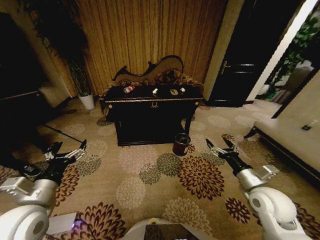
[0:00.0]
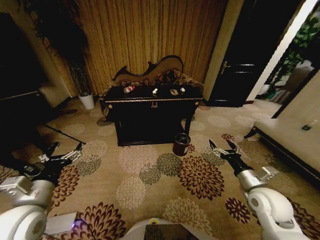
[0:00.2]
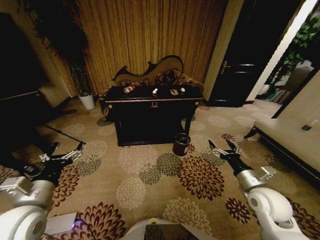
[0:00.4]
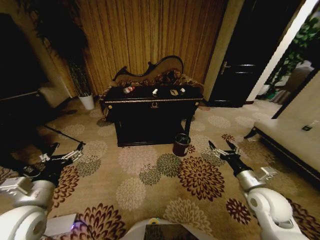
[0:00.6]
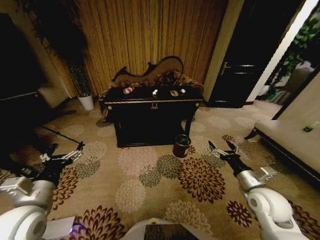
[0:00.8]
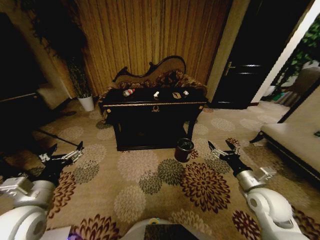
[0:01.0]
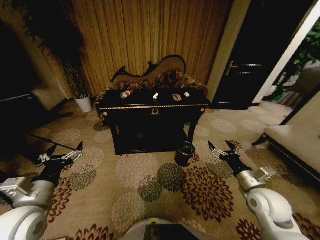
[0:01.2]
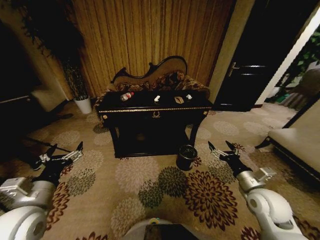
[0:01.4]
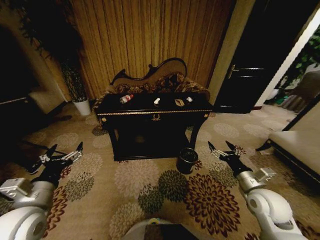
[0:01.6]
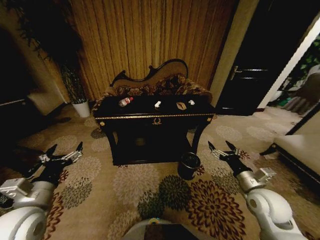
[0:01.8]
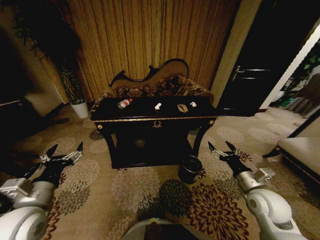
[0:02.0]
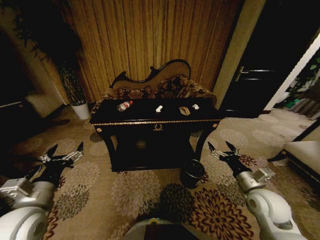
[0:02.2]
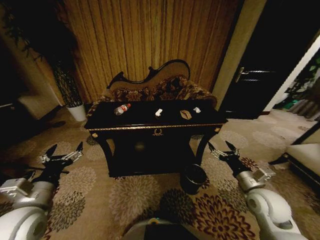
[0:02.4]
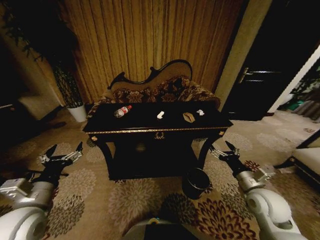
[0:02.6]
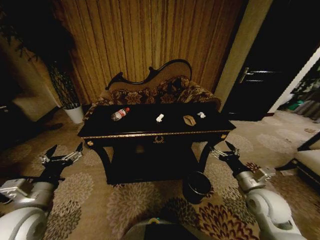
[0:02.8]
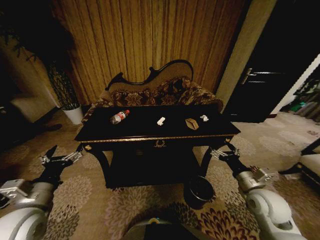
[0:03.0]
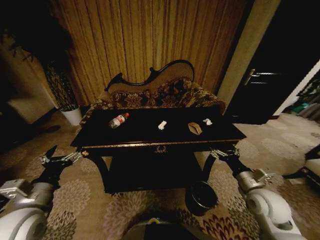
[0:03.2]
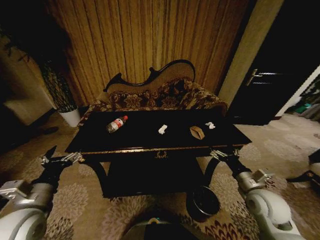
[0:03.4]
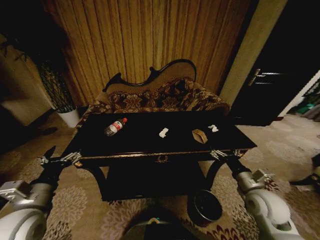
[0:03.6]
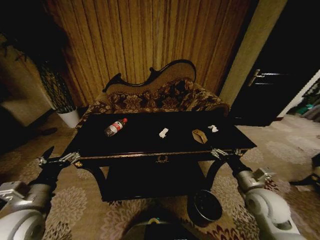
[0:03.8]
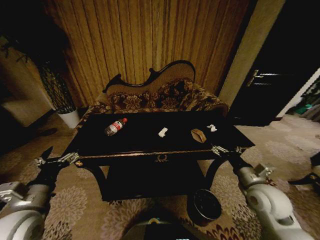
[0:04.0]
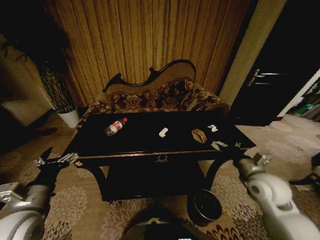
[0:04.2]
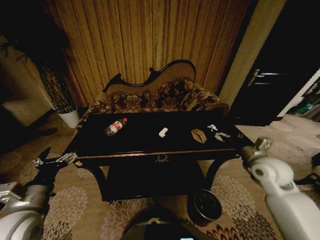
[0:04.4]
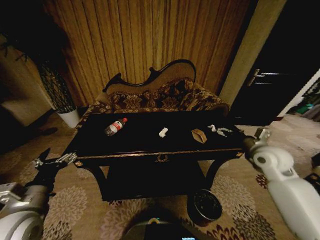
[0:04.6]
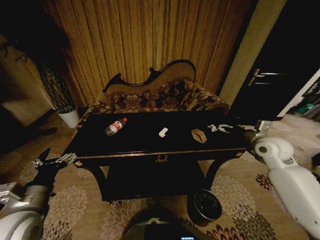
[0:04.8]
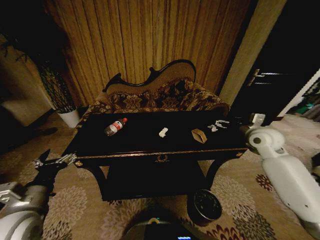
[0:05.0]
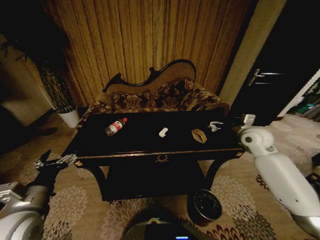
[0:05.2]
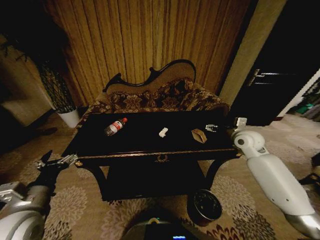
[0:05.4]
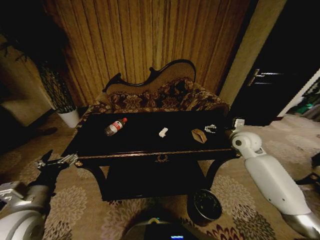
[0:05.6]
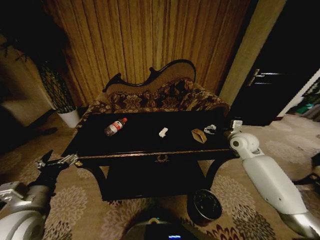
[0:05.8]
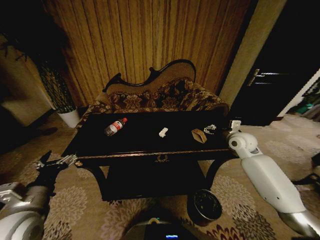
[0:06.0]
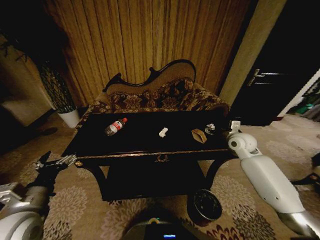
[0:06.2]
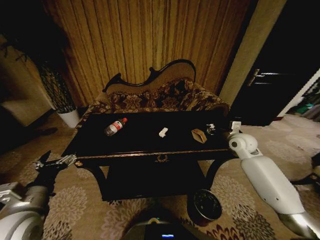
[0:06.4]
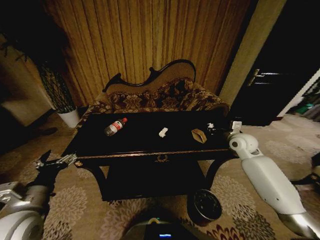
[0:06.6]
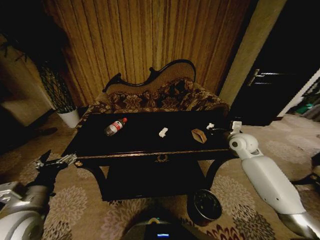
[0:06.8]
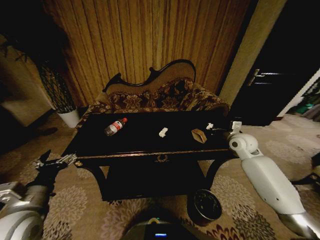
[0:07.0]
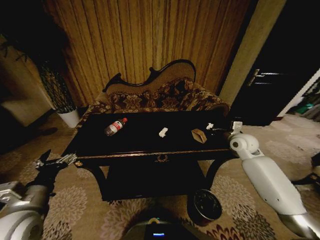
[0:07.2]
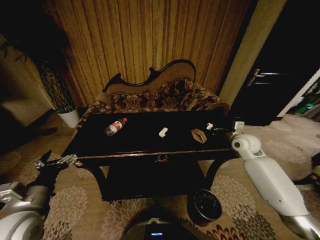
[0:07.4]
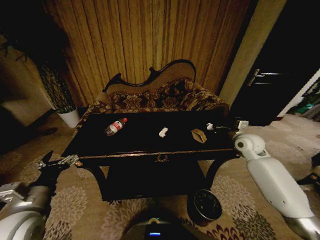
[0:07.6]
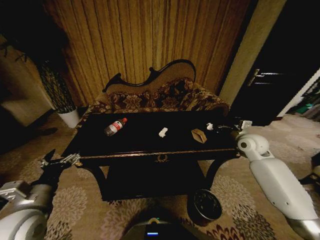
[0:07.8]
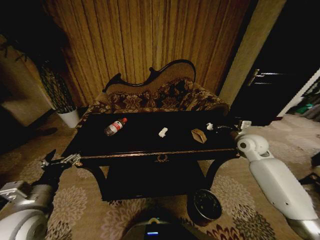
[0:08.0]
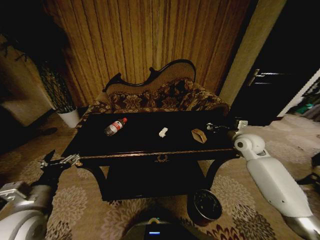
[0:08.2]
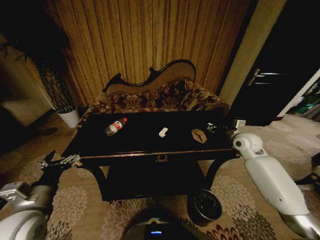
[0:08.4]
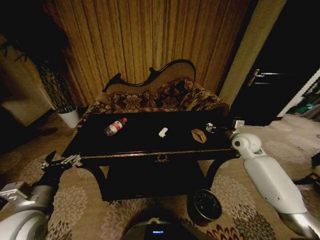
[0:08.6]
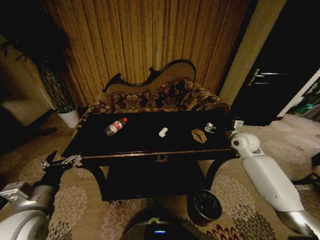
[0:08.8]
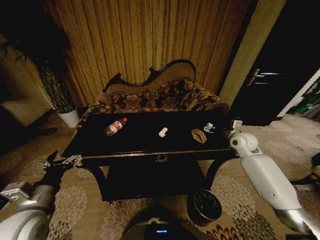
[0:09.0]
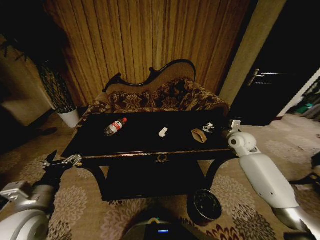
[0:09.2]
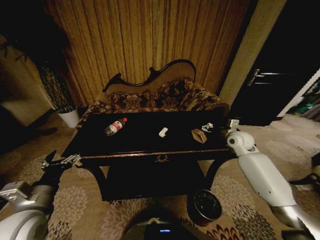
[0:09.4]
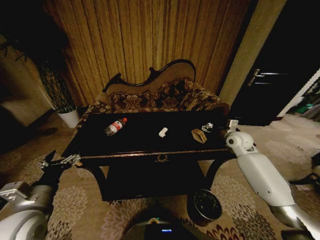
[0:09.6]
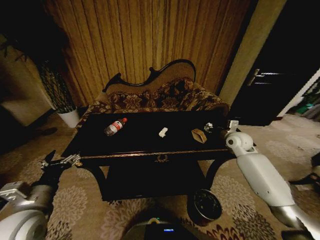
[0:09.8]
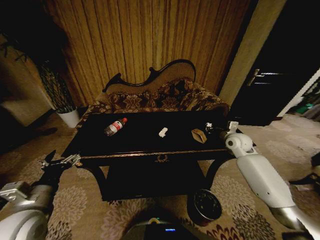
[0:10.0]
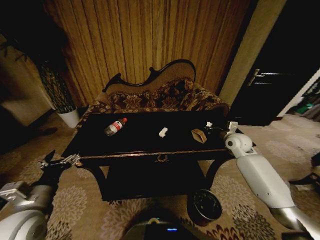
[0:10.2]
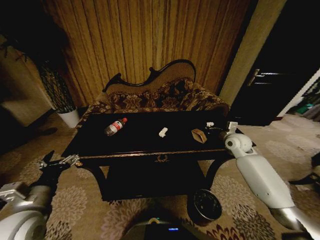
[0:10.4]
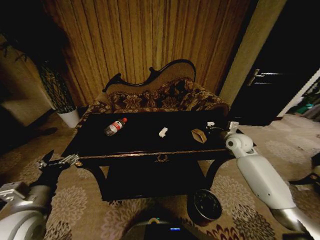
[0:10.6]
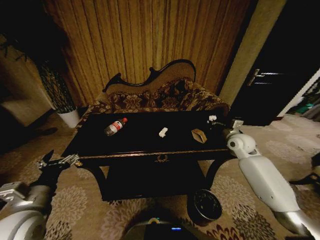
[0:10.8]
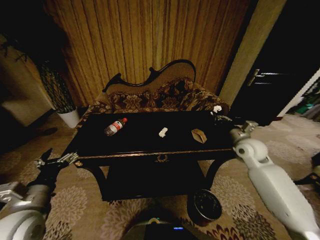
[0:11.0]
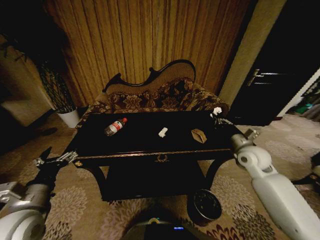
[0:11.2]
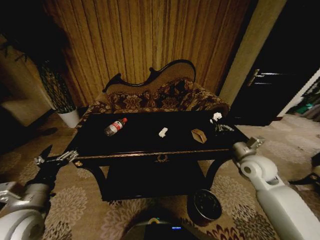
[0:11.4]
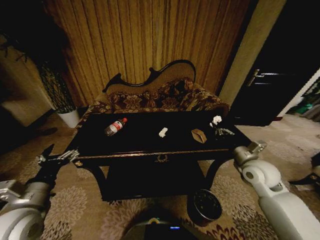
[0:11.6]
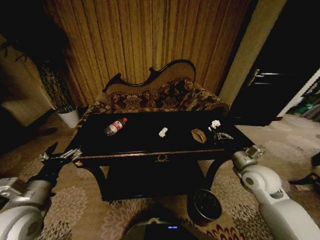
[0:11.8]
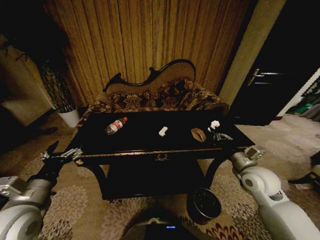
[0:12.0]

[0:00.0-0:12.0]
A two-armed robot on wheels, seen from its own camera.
Task of the whole recording: Move to the front of the table and place the trash on the table into the trash bin.
0:03.0 to 0:04.4: The right gripper shifts approximately 10 cm forward and upward.
0:04.4 to 0:06.0: The right gripper heads forward, covering some 15 cm.
0:06.0 to 0:07.6: The right gripper closes its fingers.
0:07.6 to 0:09.0: The right gripper opens up.
0:09.0 to 0:10.4: The right gripper closes up.
0:10.4 to 0:12.0: The right gripper heads backward, covering roughly 15 cm.

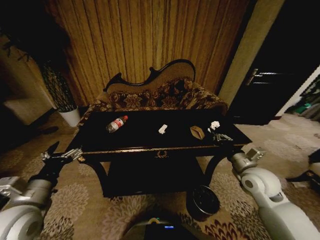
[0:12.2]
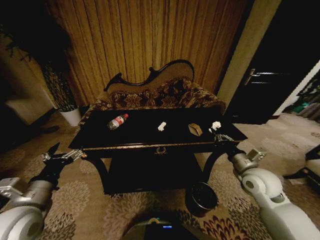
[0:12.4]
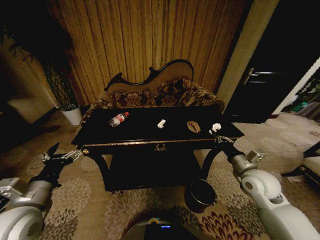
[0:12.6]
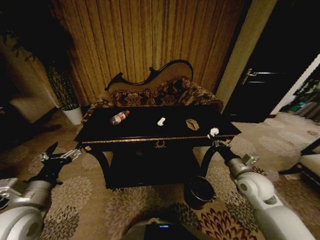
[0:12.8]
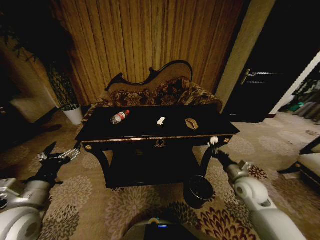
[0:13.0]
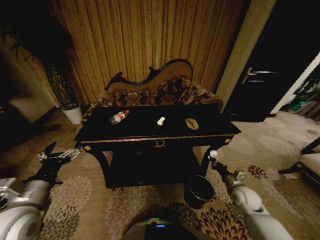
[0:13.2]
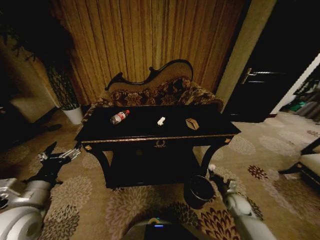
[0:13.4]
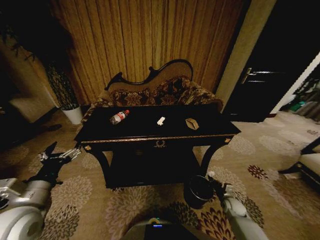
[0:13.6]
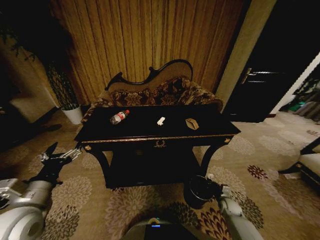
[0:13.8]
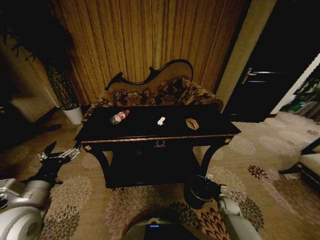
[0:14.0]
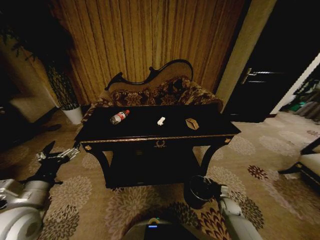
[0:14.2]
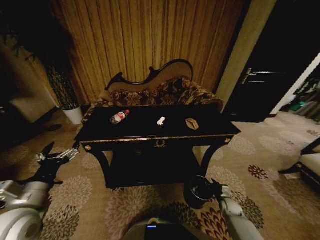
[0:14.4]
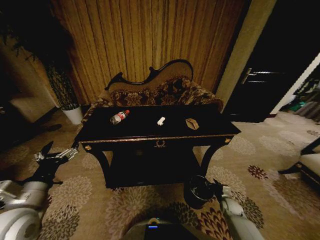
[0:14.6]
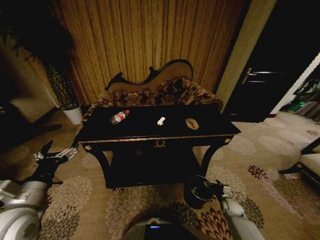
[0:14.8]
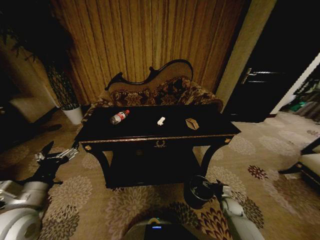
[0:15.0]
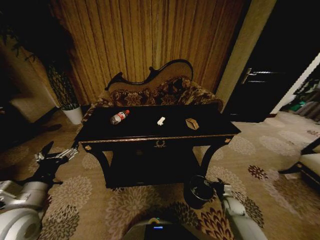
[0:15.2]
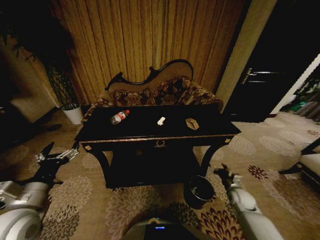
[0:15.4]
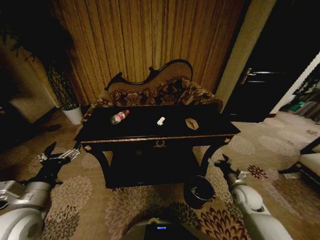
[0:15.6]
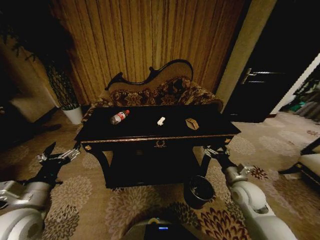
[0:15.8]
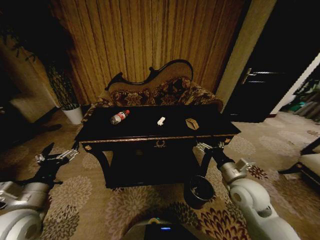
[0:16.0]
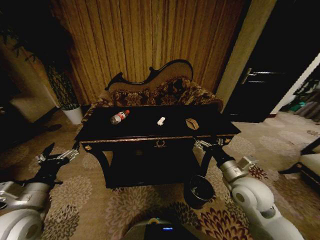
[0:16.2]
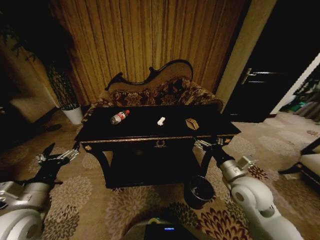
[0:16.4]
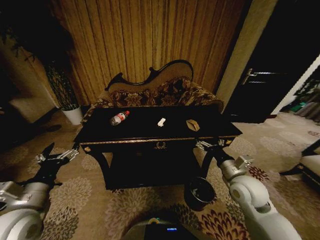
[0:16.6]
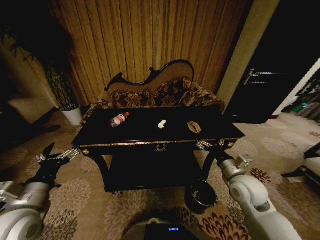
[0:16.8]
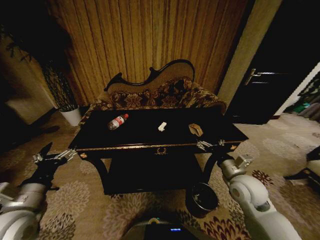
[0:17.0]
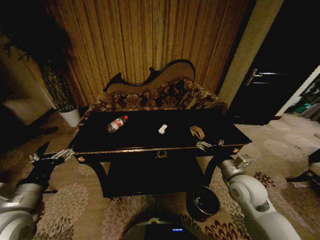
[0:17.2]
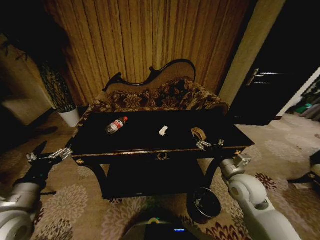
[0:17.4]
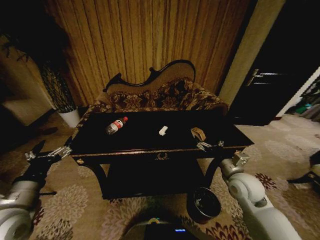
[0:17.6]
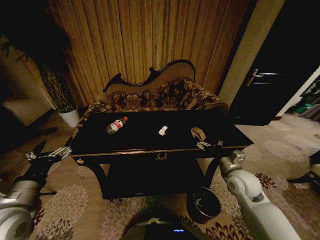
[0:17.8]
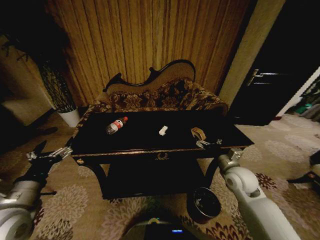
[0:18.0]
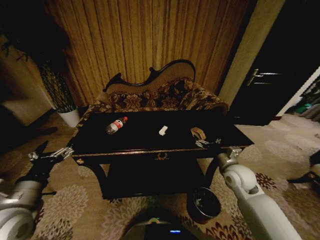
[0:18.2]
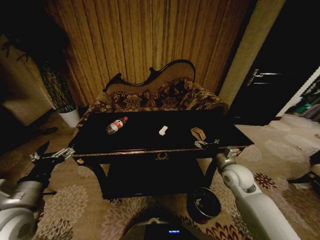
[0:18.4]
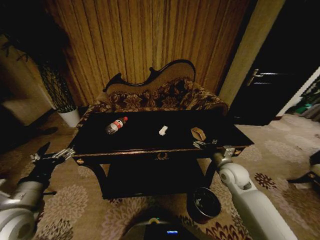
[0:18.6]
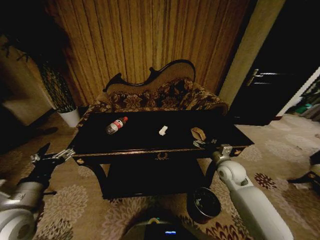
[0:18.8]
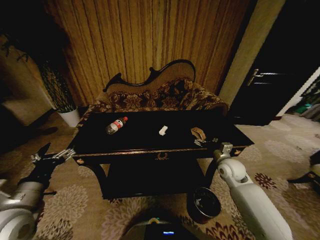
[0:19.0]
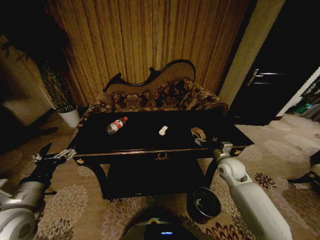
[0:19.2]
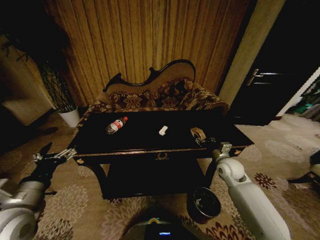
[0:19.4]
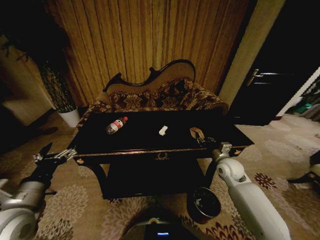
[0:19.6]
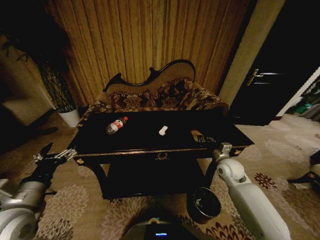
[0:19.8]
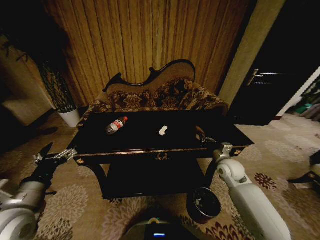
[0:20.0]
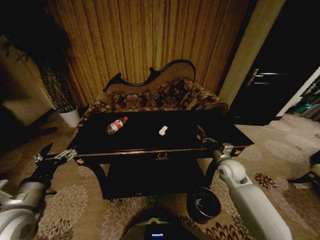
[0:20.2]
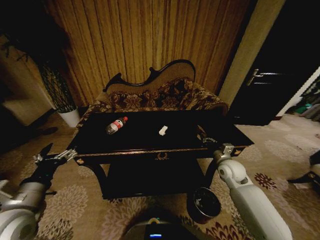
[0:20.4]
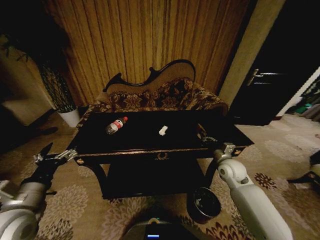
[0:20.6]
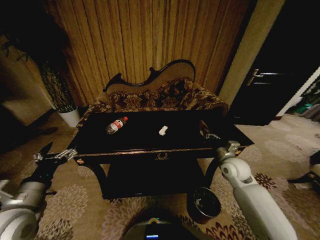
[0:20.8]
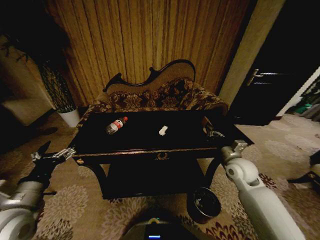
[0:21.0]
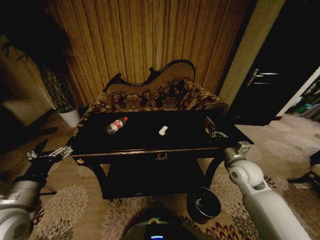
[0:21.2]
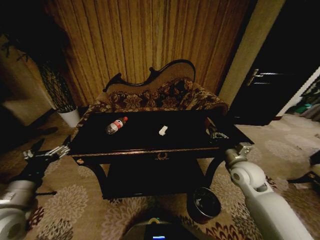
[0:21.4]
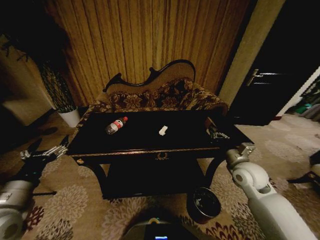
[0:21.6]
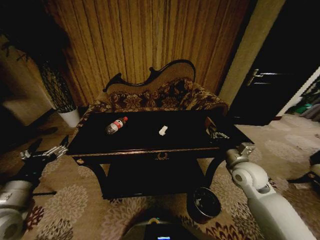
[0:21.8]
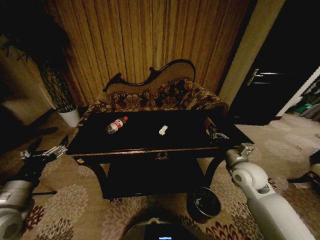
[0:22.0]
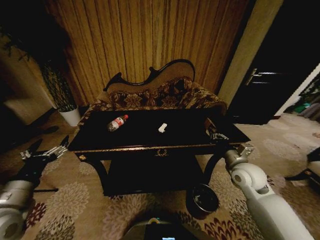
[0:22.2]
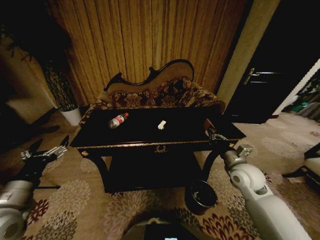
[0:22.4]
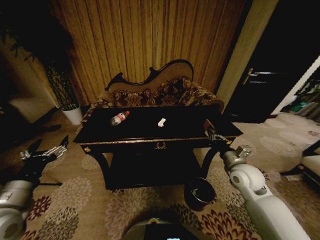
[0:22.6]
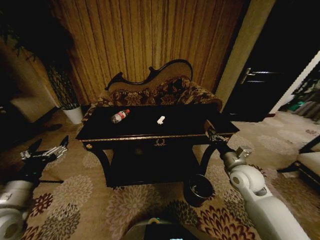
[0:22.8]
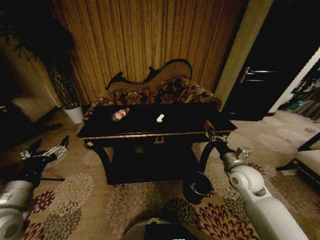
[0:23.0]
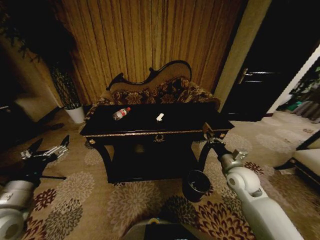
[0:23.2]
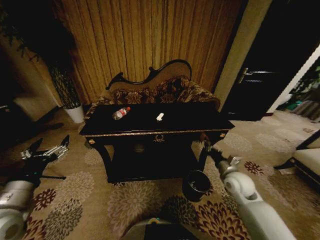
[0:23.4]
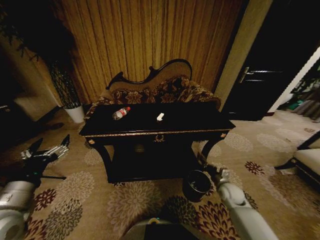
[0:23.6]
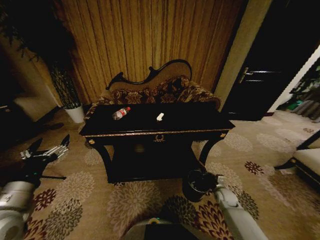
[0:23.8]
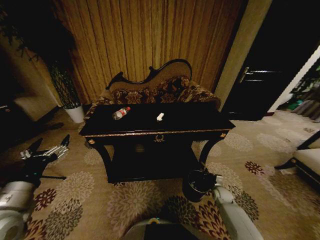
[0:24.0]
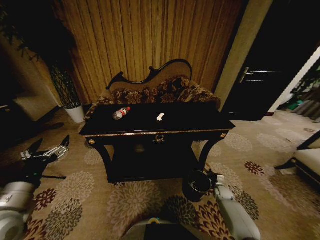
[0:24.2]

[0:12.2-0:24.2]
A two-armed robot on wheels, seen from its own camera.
Task of the whole recording: Move to the front of the table and place the trash on the table into the trash bin.
0:12.2 to 0:13.8: The right gripper travels downward by approximately 35 cm.
0:13.8 to 0:15.2: The right gripper opens up.
0:15.2 to 0:16.6: The right gripper is displaced upward by about 30 cm.
0:16.6 to 0:18.2: The right gripper travels forward by approximately 5 cm.
0:18.2 to 0:19.8: The right gripper heads forward, covering roughly 5 cm, and closes.
0:19.8 to 0:21.2: The right gripper travels upward by about 5 cm.
0:21.2 to 0:22.6: The grippers stay close to where they were, moving slightly.
0:22.6 to 0:24.2: The right gripper moves downward, approximately 30 cm.
